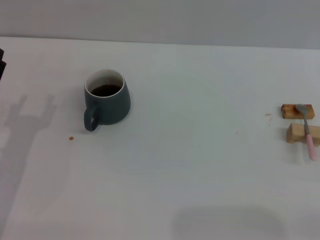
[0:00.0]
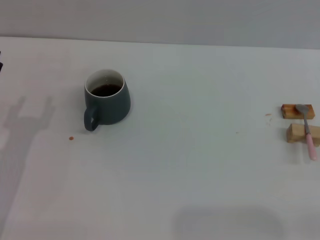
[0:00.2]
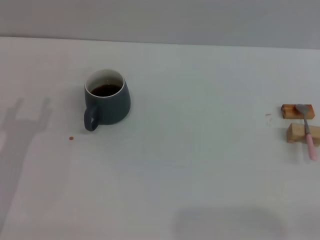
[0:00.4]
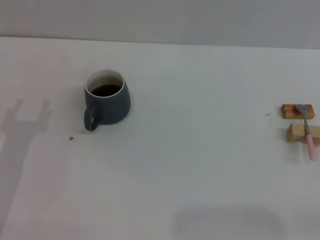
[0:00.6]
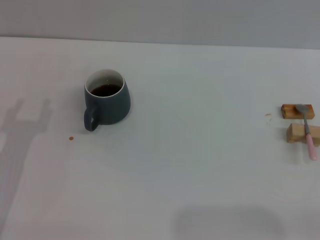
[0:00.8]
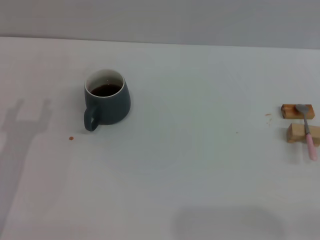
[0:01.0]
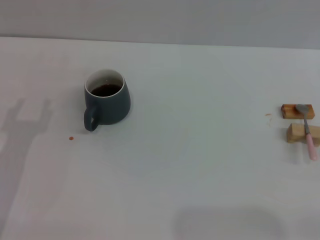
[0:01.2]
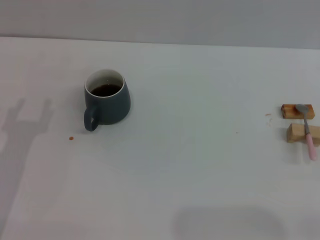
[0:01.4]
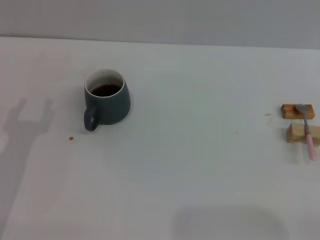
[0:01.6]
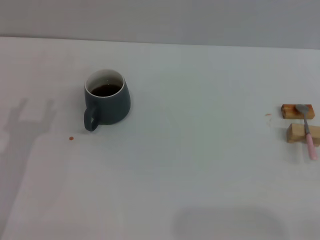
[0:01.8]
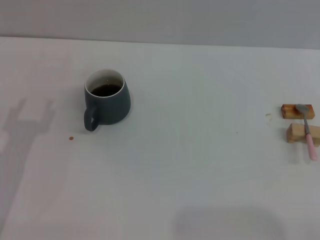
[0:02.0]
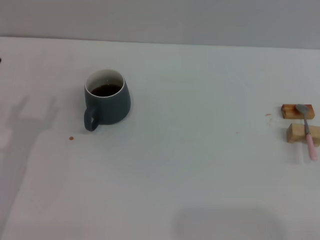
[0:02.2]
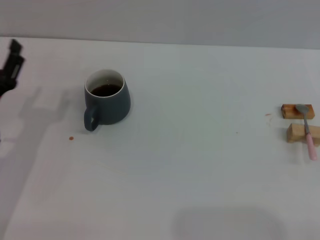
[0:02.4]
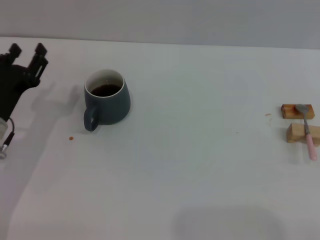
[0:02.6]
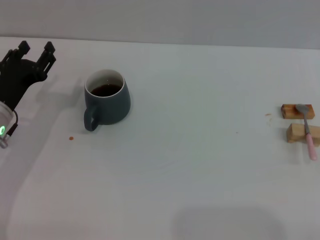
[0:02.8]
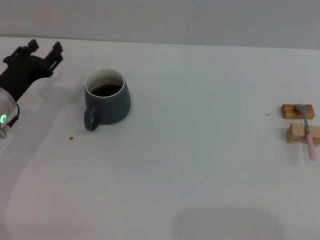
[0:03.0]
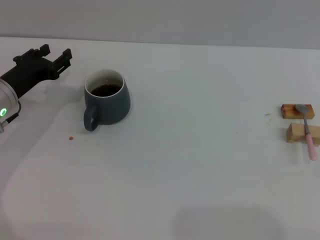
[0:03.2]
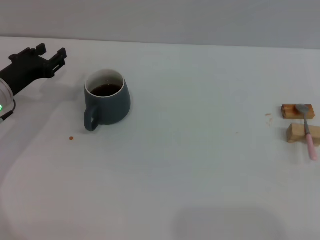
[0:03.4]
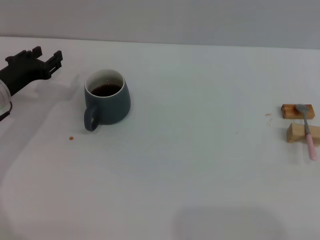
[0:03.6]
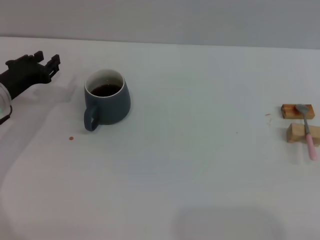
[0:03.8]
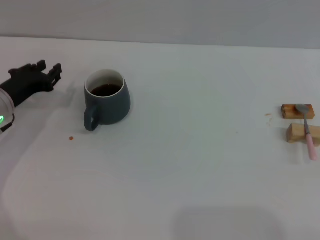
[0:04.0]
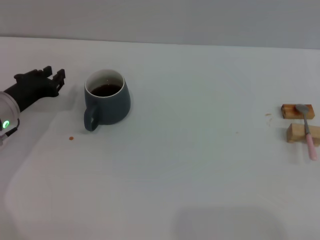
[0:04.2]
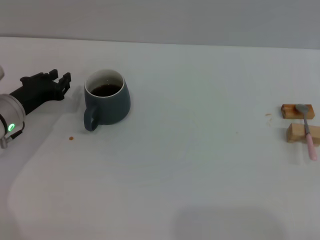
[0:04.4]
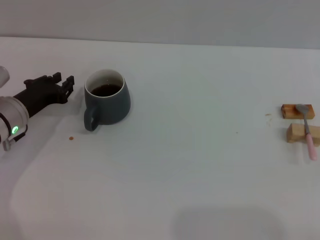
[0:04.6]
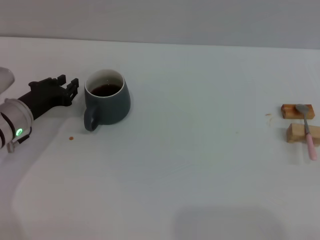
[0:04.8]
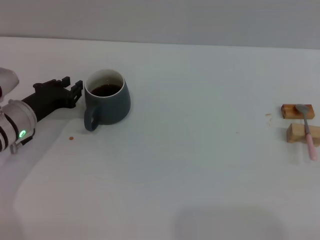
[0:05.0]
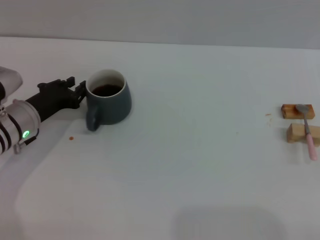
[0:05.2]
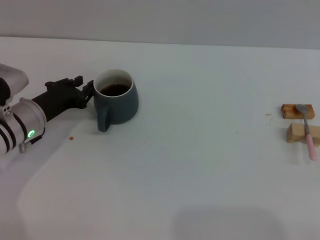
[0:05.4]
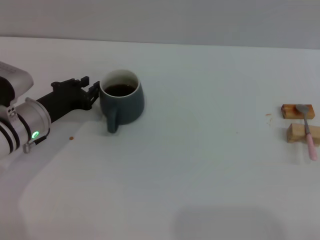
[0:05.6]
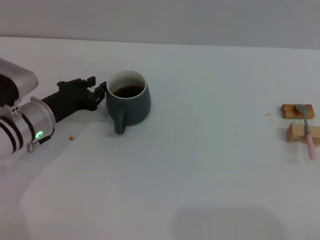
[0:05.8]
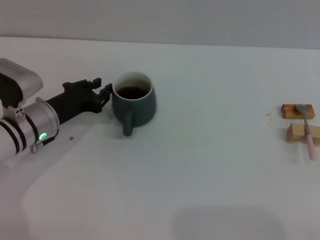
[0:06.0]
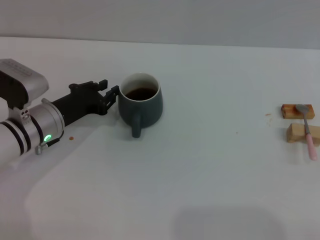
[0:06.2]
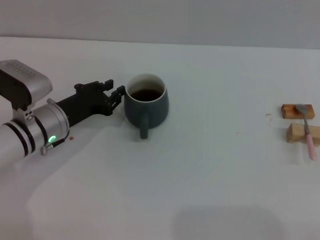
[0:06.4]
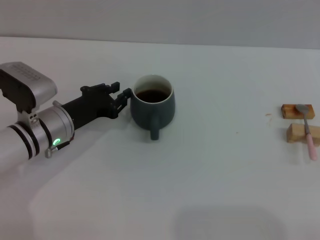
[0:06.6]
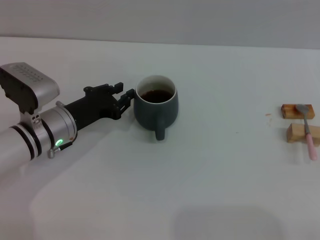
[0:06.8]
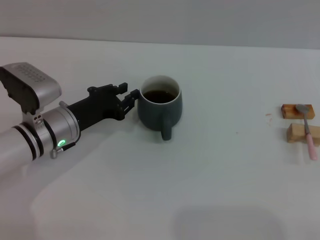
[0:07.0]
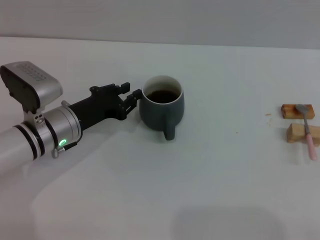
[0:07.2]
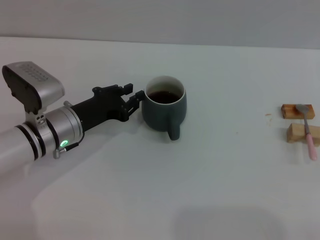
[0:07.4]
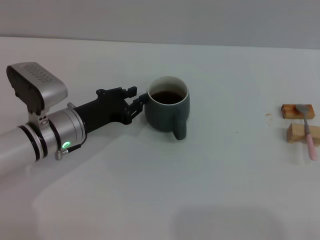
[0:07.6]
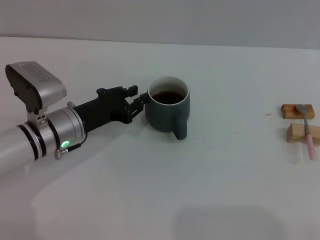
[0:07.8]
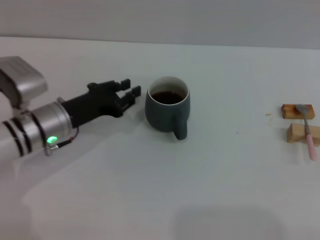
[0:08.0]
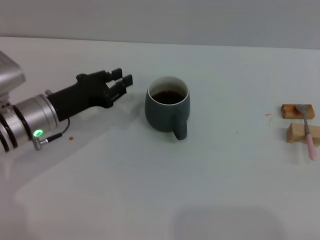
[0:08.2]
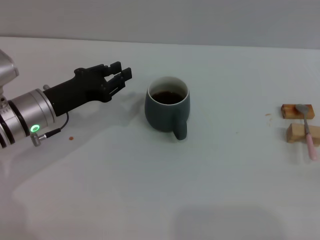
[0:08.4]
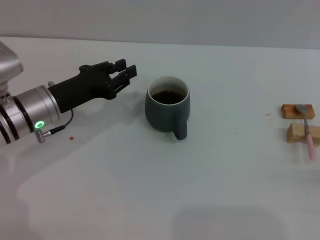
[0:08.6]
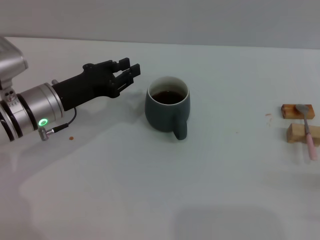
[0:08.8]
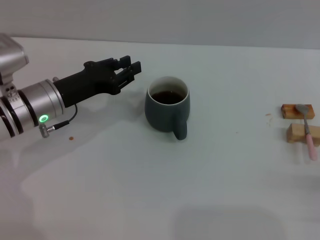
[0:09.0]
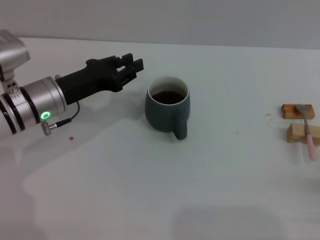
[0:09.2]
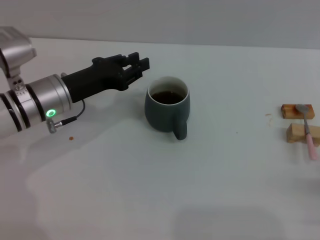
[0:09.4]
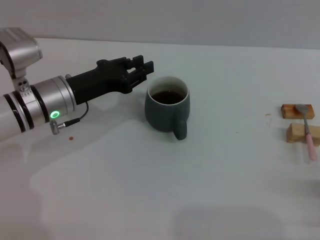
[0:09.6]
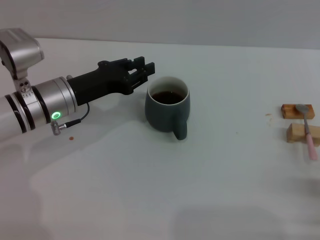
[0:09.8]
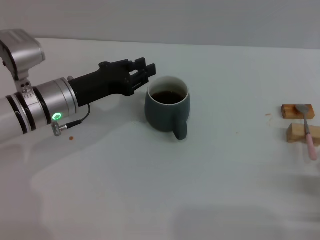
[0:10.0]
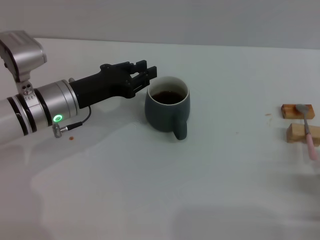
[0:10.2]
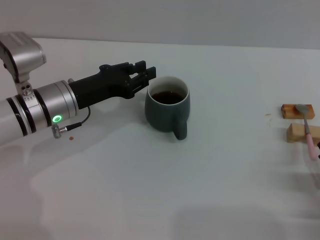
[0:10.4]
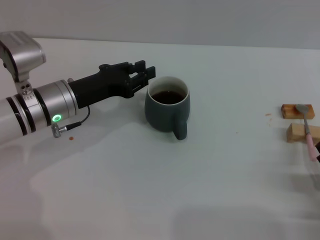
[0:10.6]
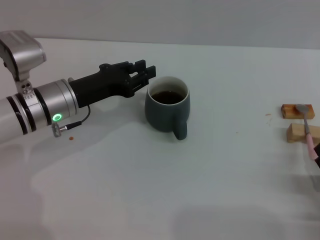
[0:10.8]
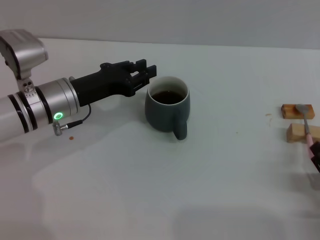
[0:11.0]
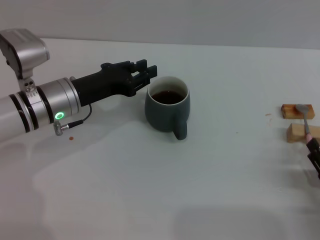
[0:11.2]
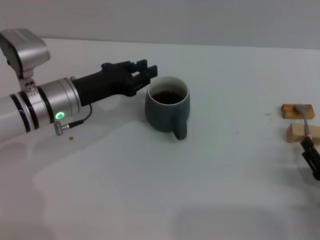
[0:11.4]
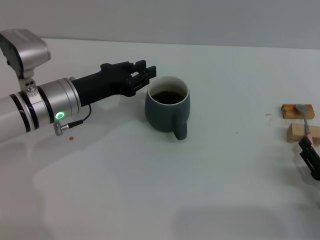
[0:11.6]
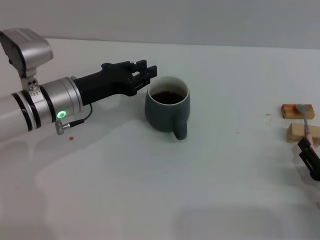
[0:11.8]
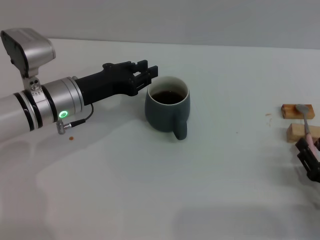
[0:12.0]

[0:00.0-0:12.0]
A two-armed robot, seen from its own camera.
Task of the whole recording: Move the grey cup to the center, lift the pink spoon, stir it three times in the cup, and put the spoon into the cup.
Step, 0:00.0 to 0:08.0: Move the cup with coffee to the center of view with the left gripper.
0:01.6 to 0:03.0: The left gripper travels forward by approximately 10 cm.
0:03.0 to 0:04.4: The left gripper closes up.
0:04.4 to 0:06.0: The grippers make only small movements.
0:06.0 to 0:07.6: The grippers stay close to where they were, moving slightly.
0:07.6 to 0:09.0: The right gripper moves approximately 5 cm.
0:09.0 to 0:10.4: The right gripper moves approximately 5 cm.
0:10.4 to 0:12.0: The grippers move only a little.

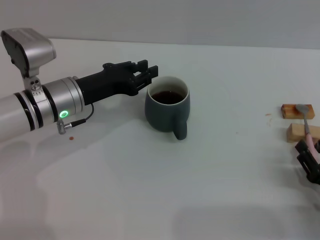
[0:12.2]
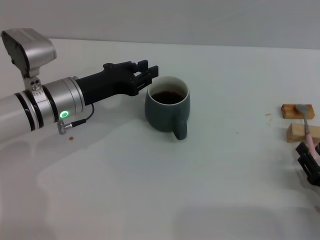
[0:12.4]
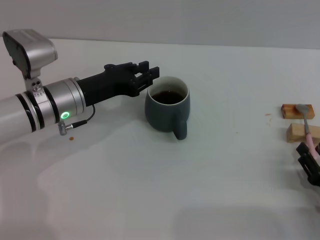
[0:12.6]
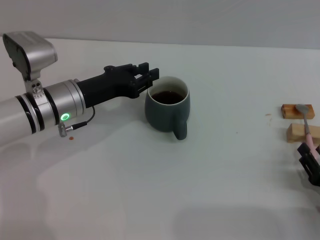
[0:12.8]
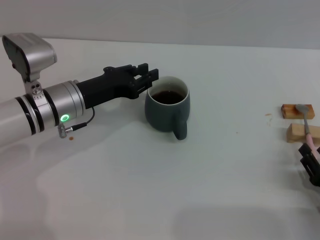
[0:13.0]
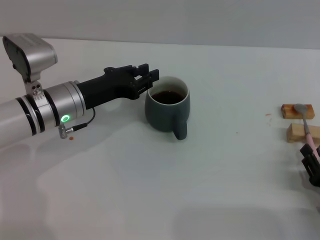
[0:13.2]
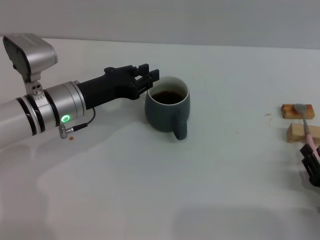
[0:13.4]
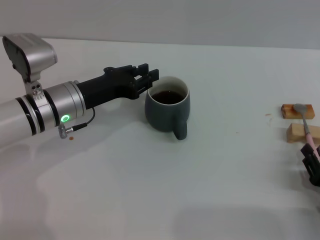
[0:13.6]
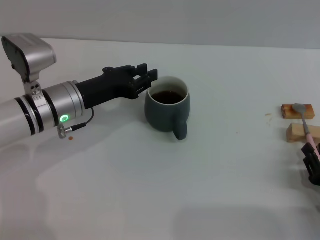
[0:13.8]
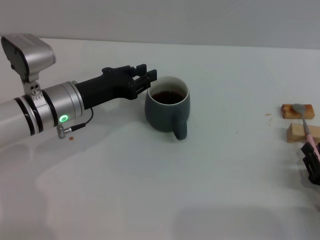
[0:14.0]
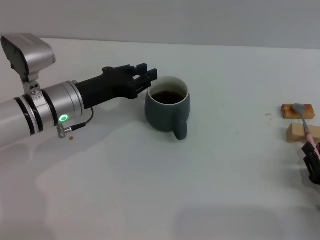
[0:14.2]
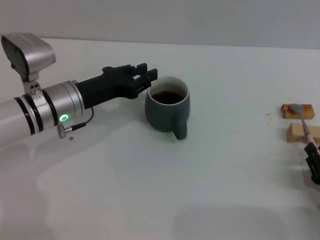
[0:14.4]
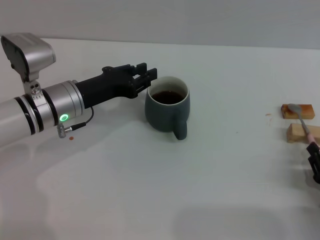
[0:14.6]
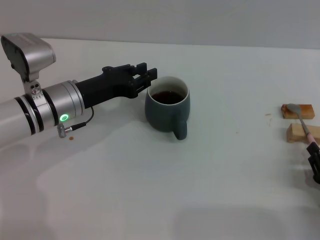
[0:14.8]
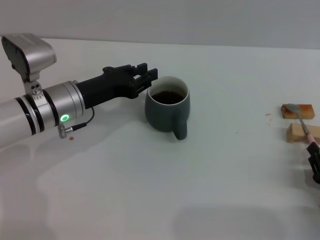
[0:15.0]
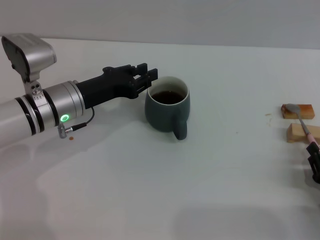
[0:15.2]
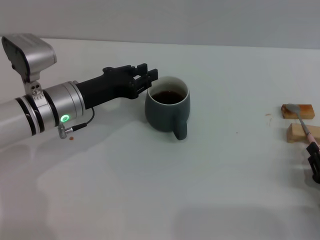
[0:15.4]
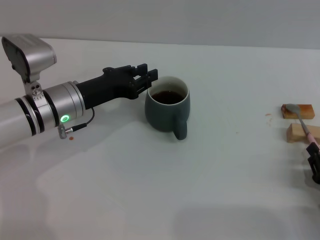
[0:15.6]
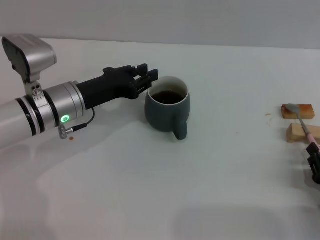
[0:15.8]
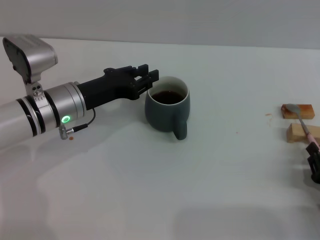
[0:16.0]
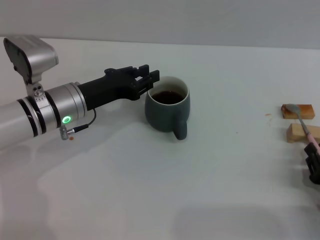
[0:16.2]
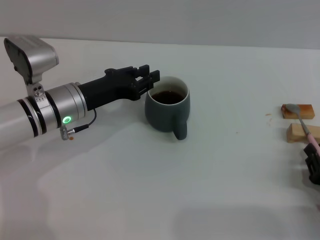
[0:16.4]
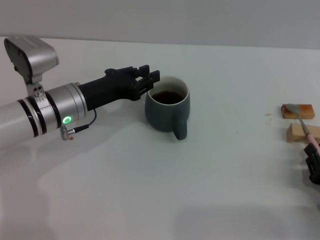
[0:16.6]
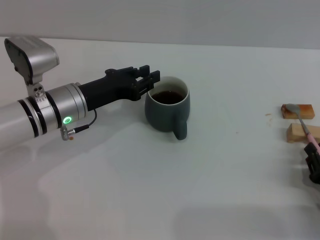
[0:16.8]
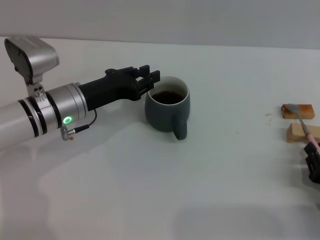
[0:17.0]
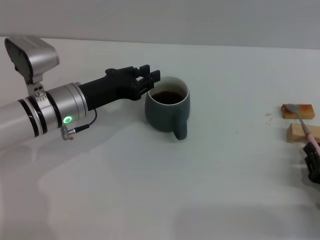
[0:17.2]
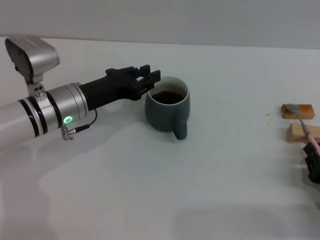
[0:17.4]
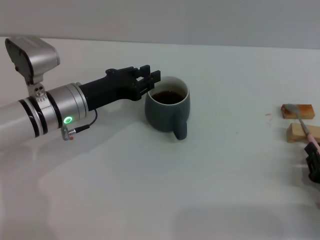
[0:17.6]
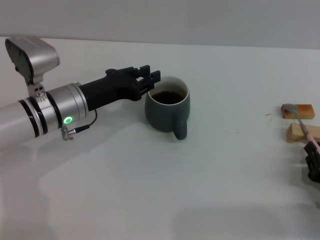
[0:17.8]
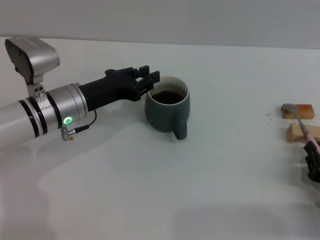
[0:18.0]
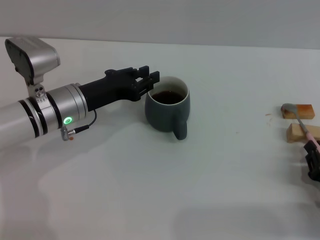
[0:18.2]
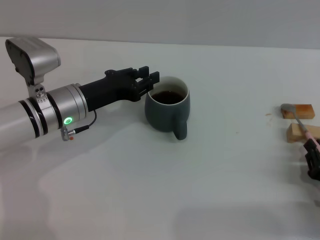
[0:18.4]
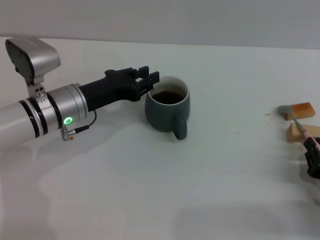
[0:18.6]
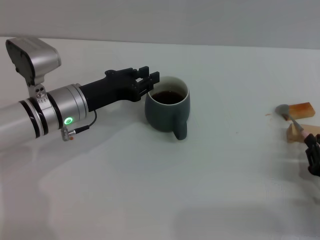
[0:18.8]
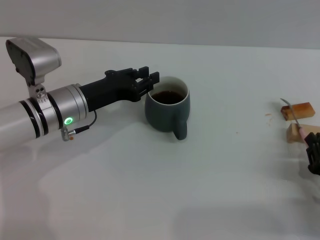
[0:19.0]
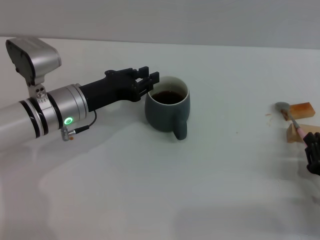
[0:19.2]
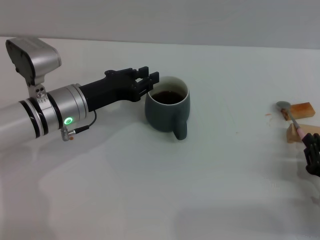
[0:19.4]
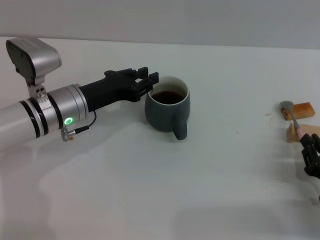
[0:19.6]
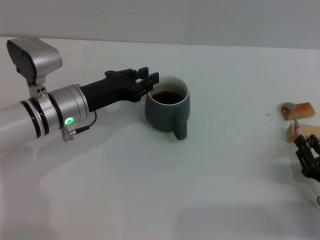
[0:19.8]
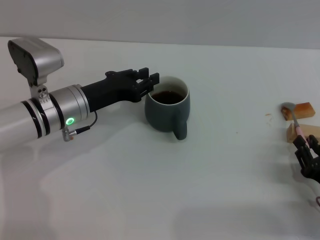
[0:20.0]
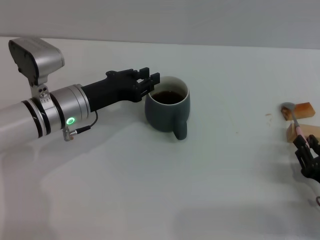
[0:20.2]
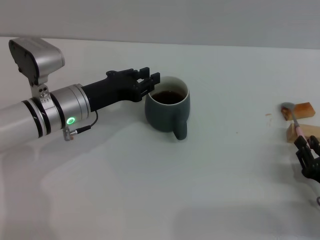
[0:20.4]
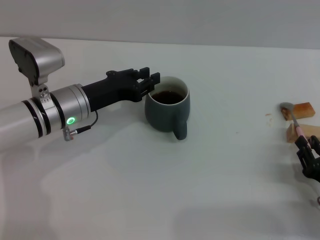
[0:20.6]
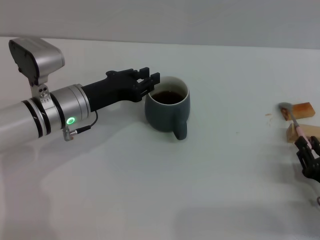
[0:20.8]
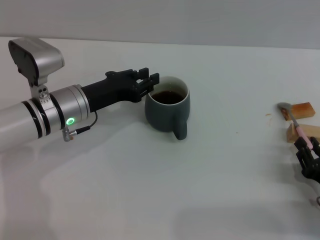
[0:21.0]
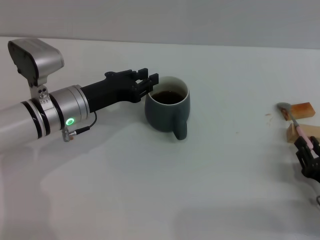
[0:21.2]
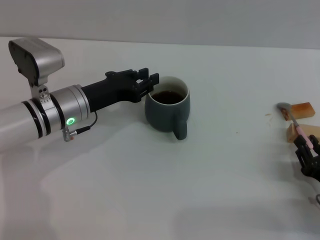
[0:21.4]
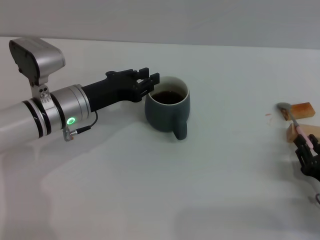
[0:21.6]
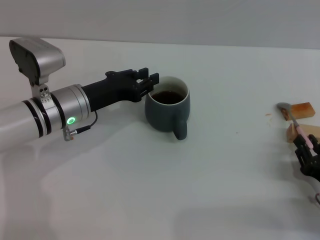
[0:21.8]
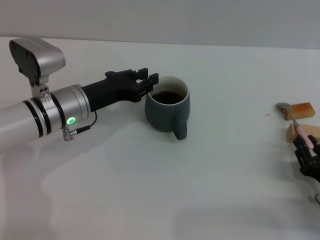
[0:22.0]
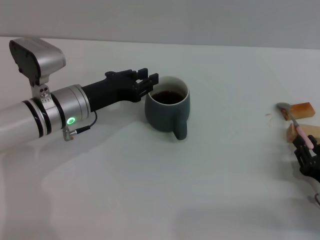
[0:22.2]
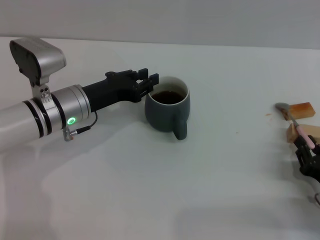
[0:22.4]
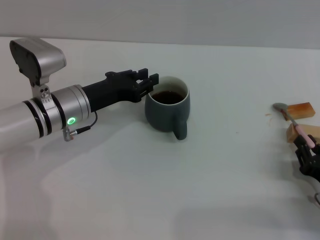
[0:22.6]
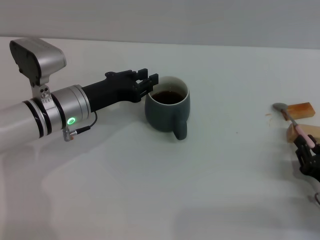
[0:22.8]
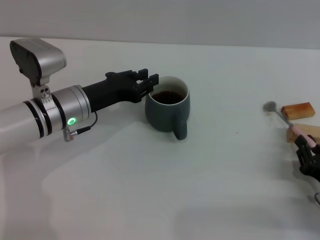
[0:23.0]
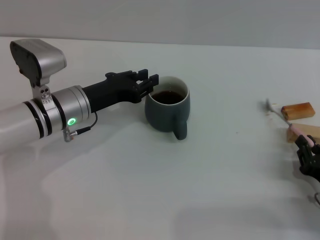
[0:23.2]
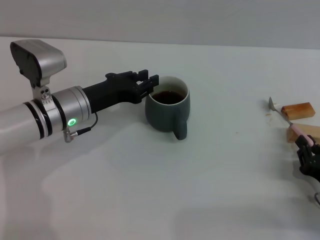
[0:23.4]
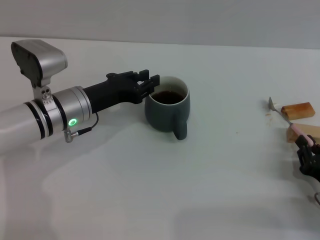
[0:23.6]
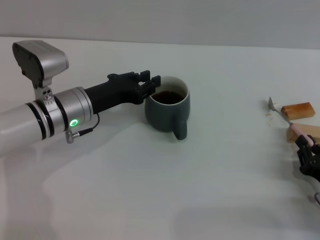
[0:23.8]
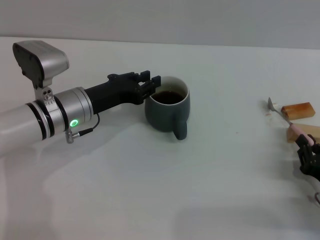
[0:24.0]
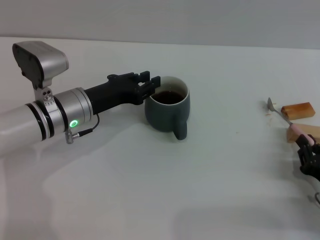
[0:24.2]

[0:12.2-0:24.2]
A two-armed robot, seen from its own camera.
Task of the whole recording: Move the grey cup to the center, lift the pink spoon, stir it three times in the cup, and put the spoon into the cup.
0:12.2 to 0:19.8: Neither gripper changes place.
0:19.8 to 0:24.2: The two grippers keep their place.
